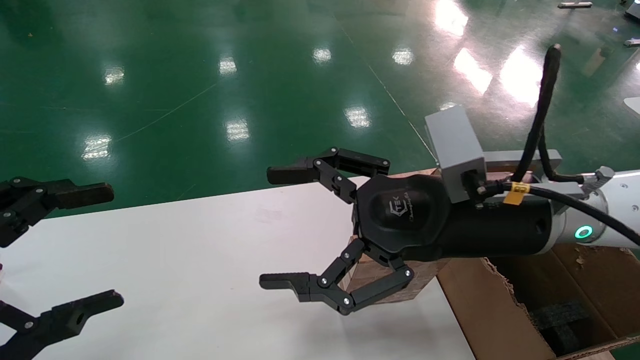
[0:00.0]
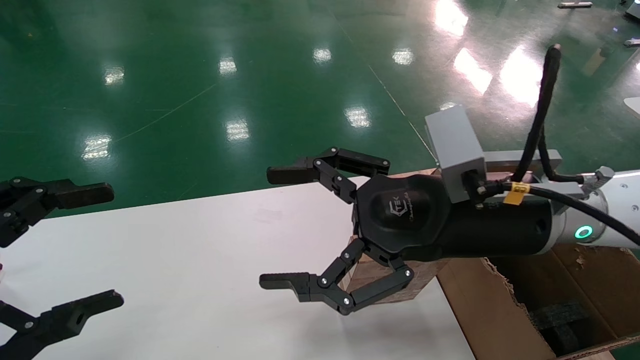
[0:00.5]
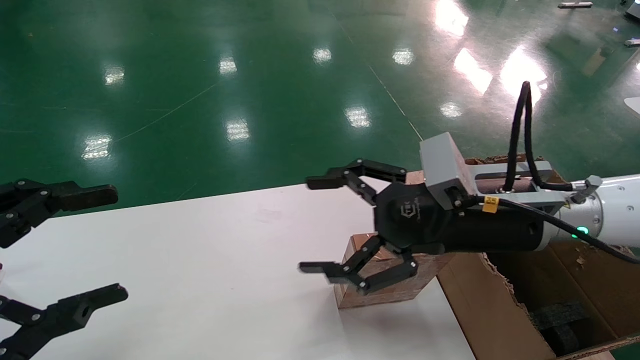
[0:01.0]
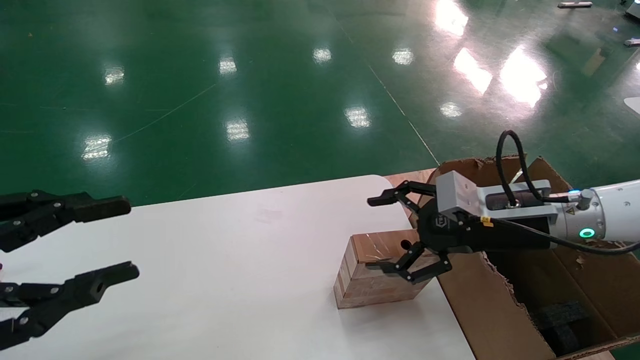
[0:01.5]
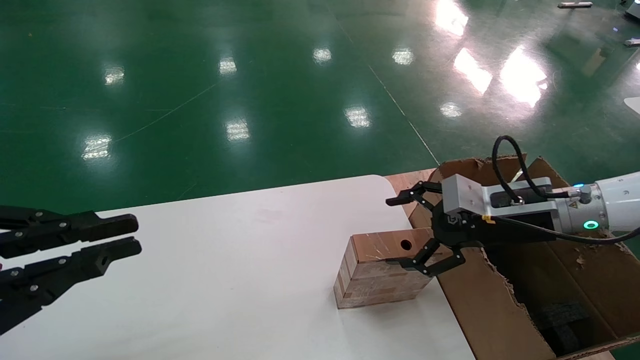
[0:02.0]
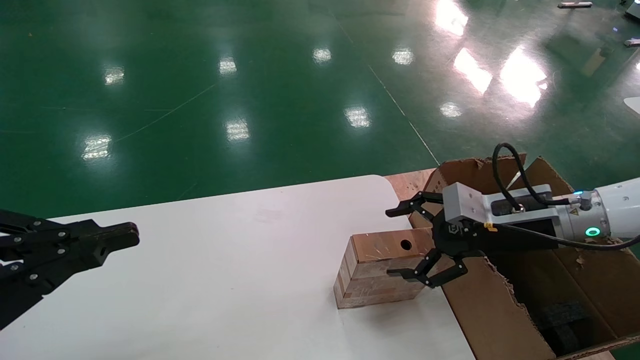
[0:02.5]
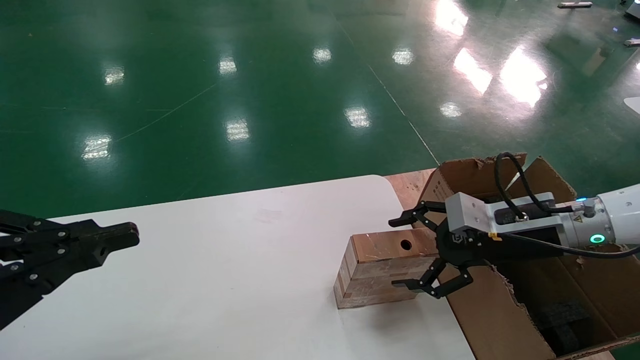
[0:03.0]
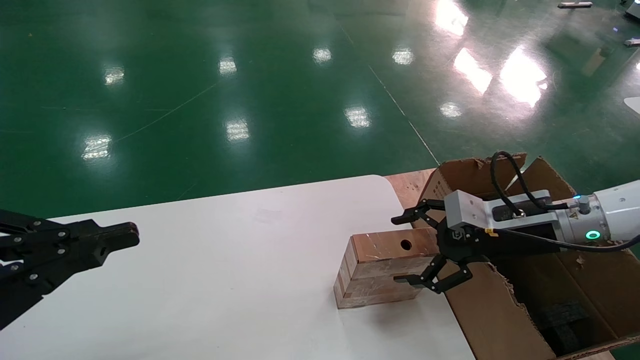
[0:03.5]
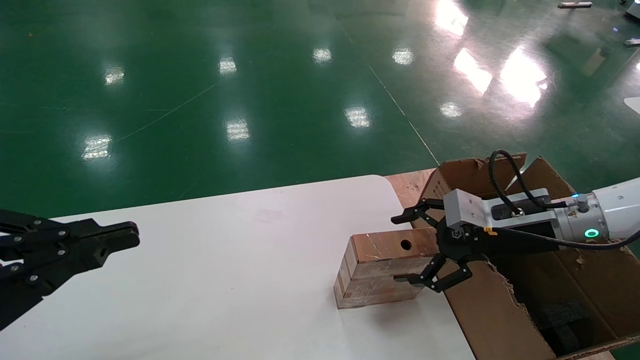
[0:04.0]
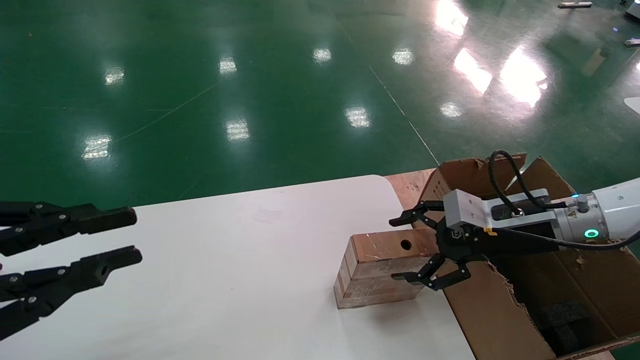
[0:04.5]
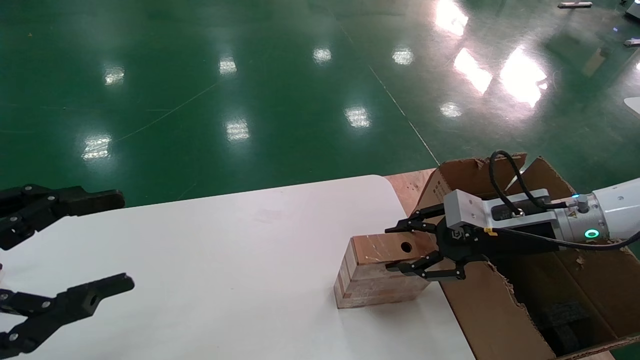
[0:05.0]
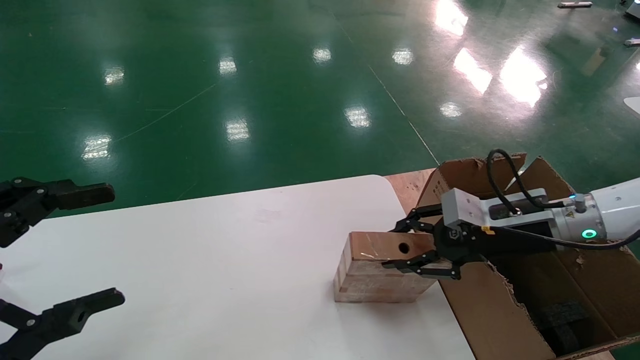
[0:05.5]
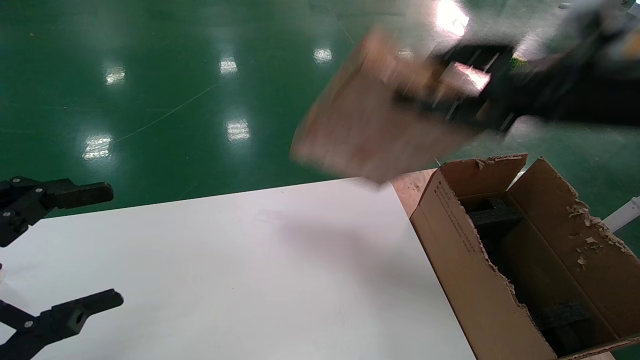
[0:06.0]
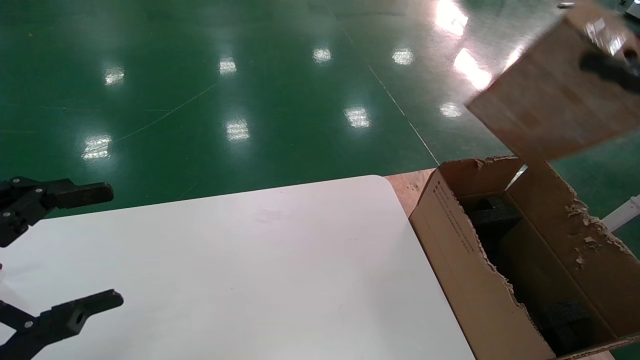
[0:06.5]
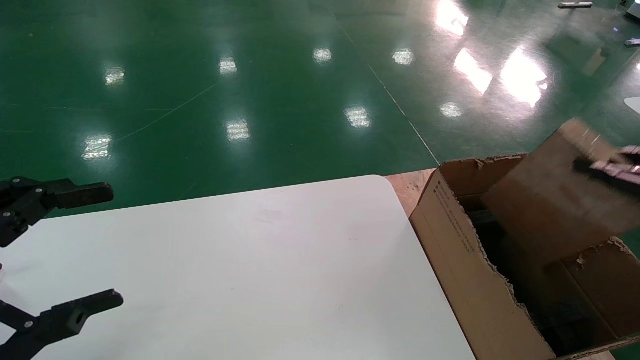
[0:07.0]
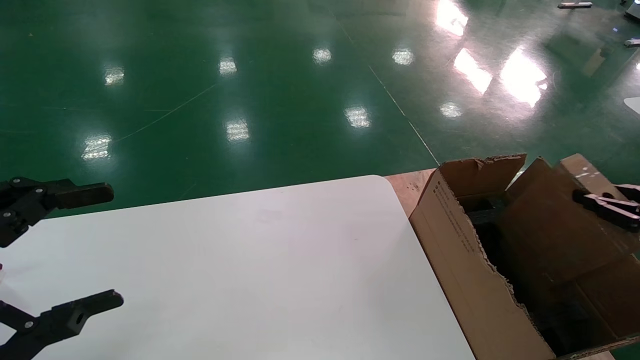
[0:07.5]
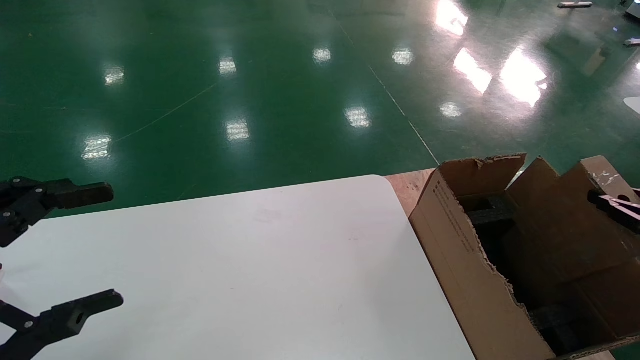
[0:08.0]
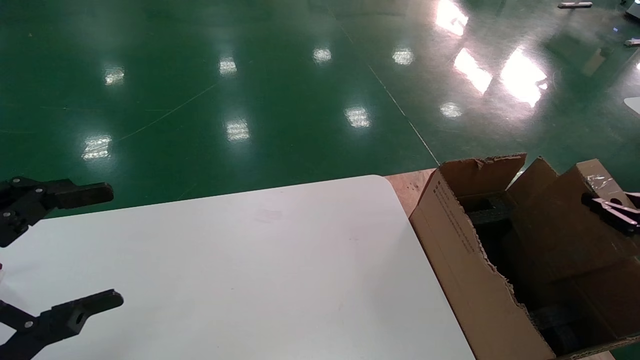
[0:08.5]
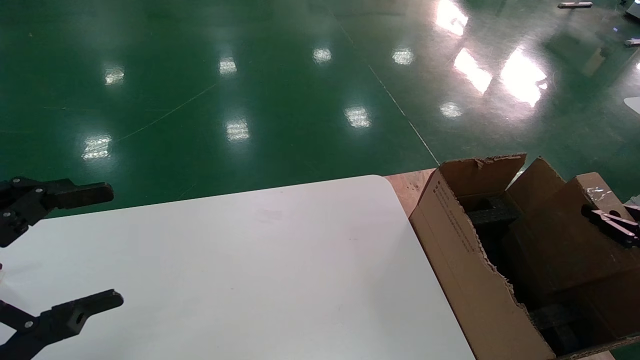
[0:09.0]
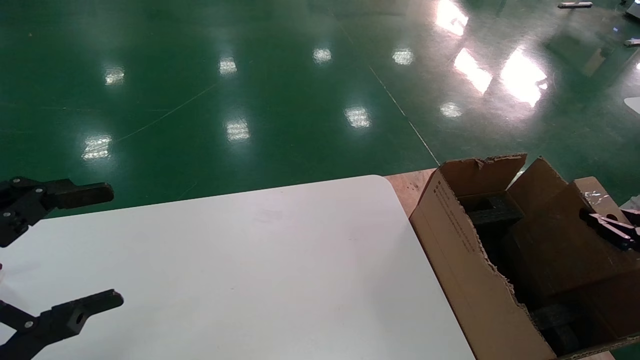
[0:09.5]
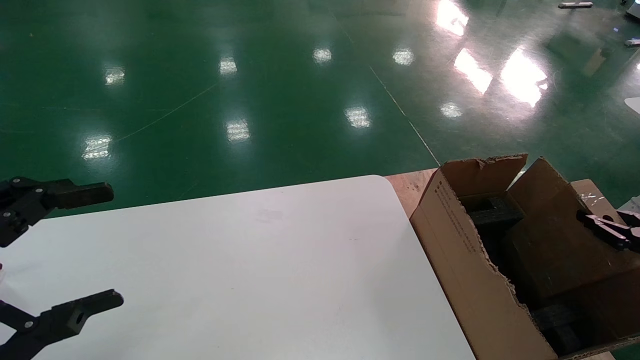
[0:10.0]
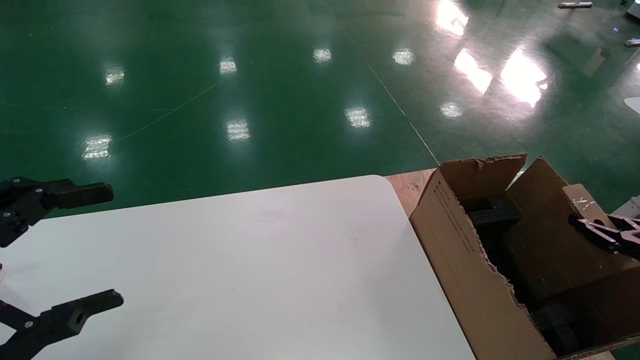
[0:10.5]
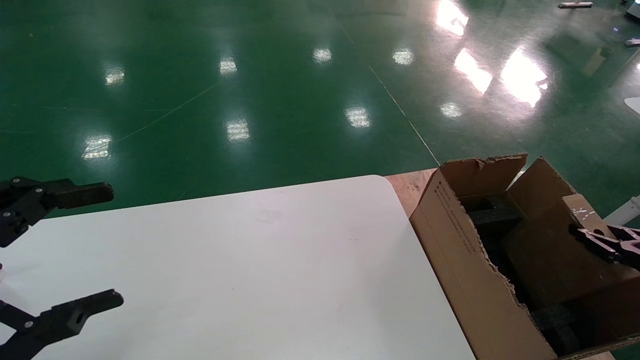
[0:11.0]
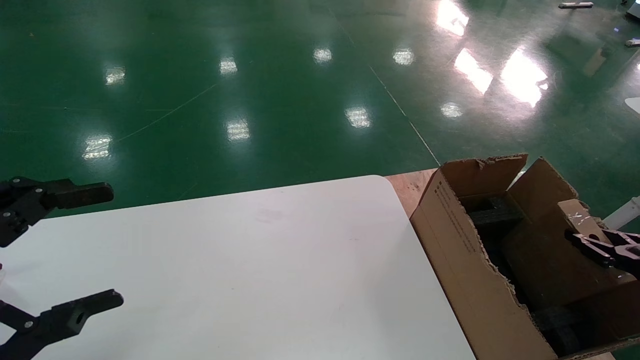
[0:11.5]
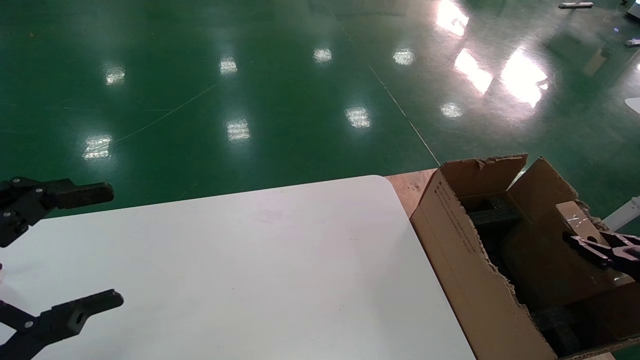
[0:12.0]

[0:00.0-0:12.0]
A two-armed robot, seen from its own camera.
Task of the whole recording: put the box on the table into the big box.
Step, 0:01.0 to 0:05.0: Pick up the mouse and the power cord paper box.
0:00.0 to 0:02.0: The left gripper closes up, while the right gripper travels to the right, forward and downward by some 15 cm.
0:02.0 to 0:04.0: The grippers stay close to where they were, moving slightly.
0:04.0 to 0:06.0: The right gripper travels upward by some 15 cm, and closes its fingers. The left gripper opens its fingers.
0:06.0 to 0:08.0: The right gripper shifts roughly 25 cm to the right and downward.
0:08.0 to 0:10.0: The right gripper travels downward by roughly 5 cm.
0:10.0 to 0:12.0: The grippers move only a little.

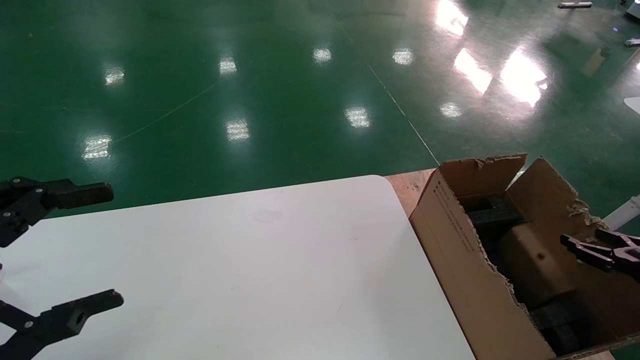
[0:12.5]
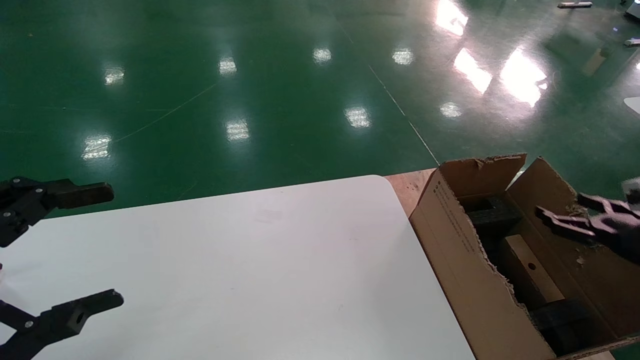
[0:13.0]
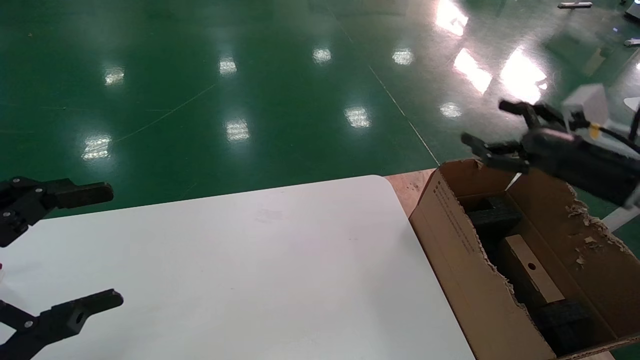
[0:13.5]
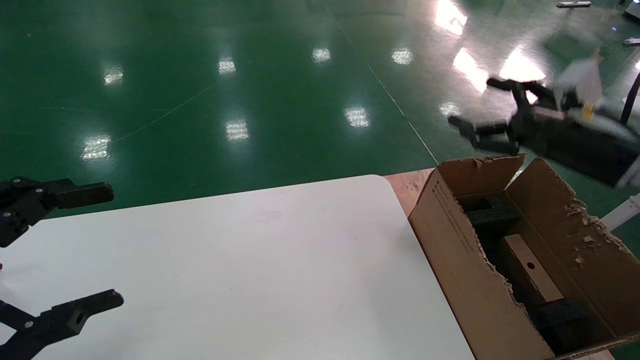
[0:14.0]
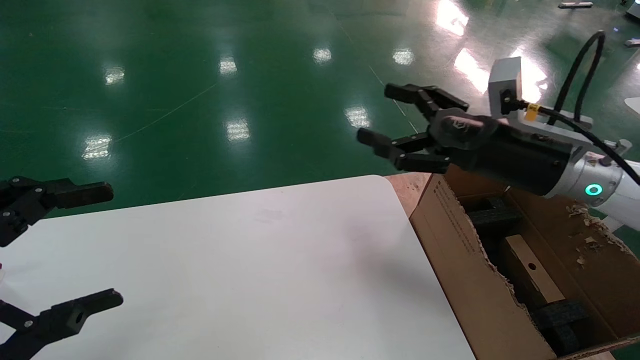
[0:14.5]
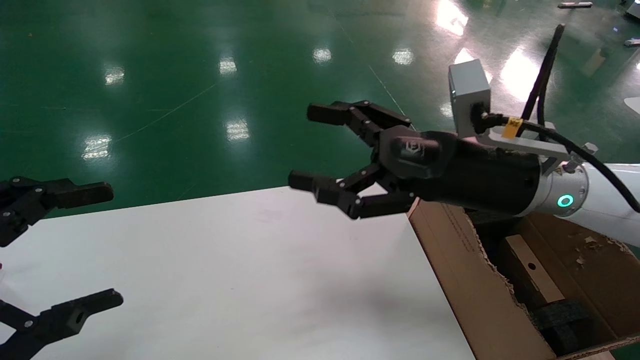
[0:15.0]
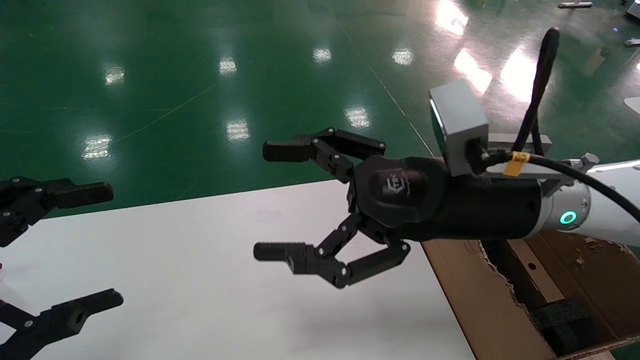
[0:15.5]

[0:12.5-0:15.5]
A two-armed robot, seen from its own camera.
Task of the whole recording: put the box on the table into the big box.
0:12.5 to 0:14.0: The right gripper is displaced upward, to the left and forward by roughly 25 cm, and opens.
0:14.0 to 0:15.5: The right gripper travels to the left by roughly 20 cm.
